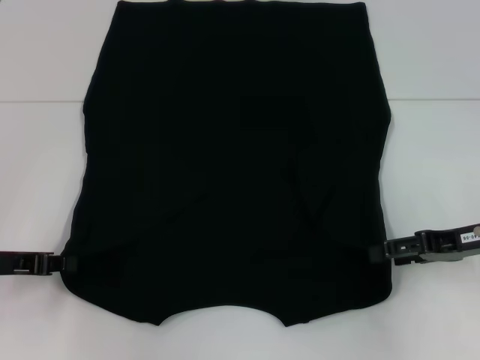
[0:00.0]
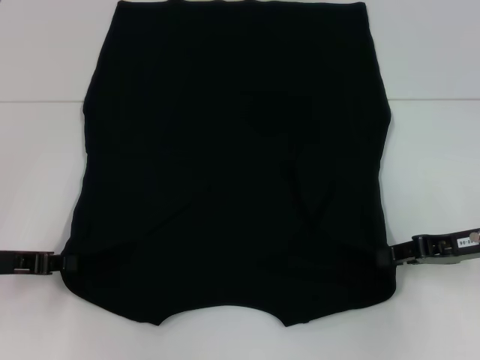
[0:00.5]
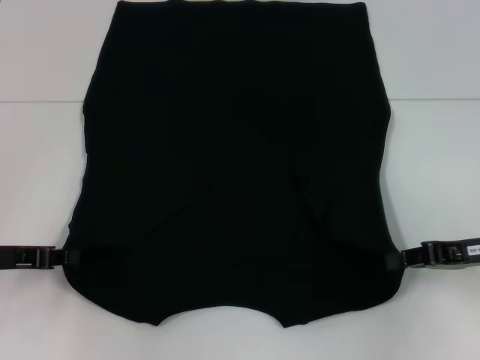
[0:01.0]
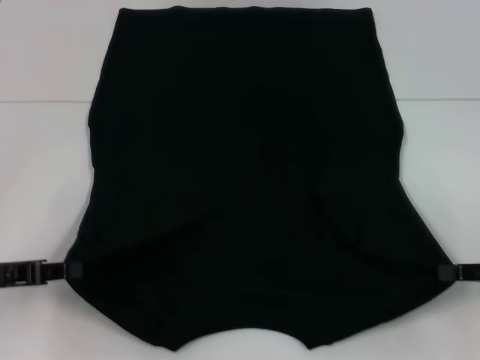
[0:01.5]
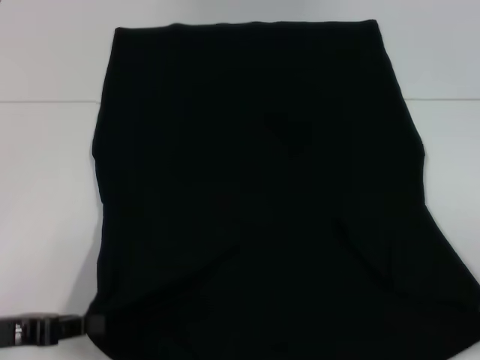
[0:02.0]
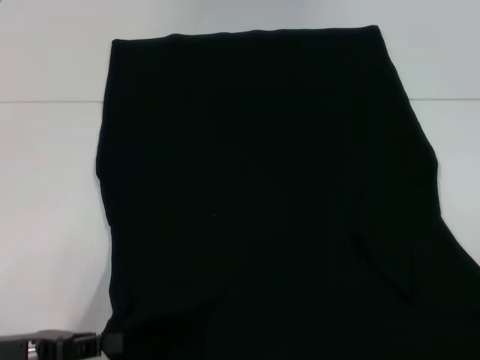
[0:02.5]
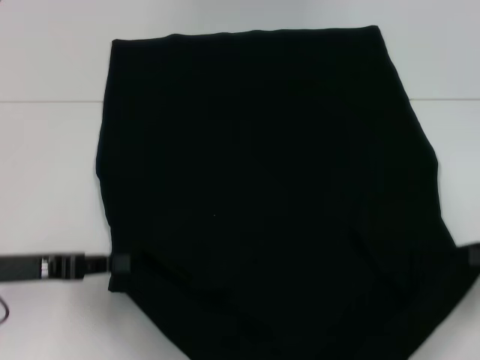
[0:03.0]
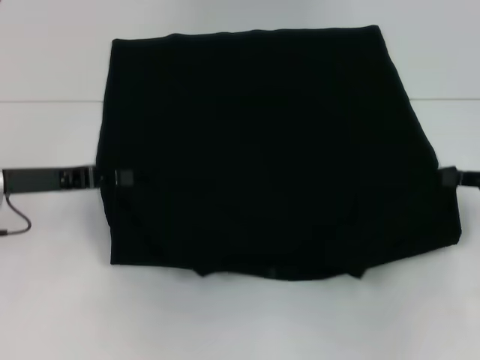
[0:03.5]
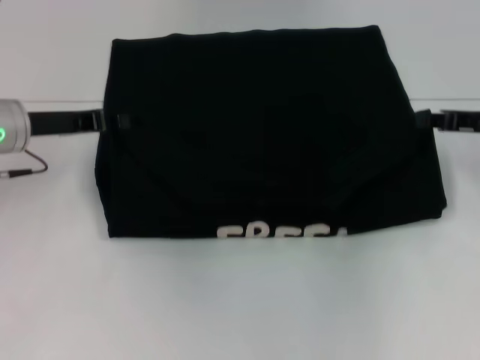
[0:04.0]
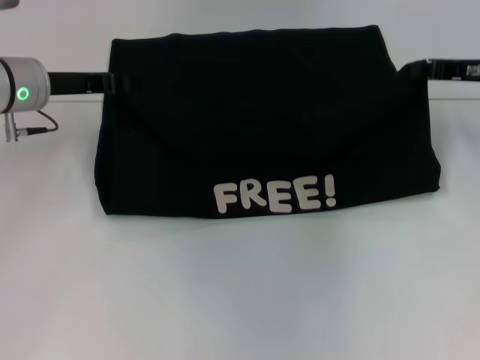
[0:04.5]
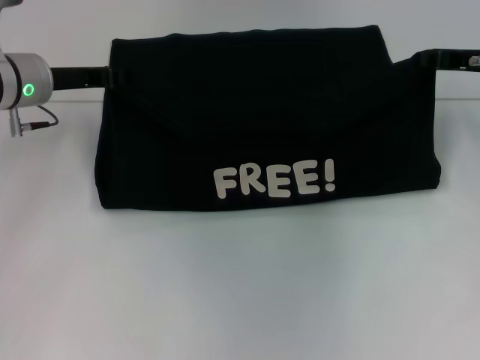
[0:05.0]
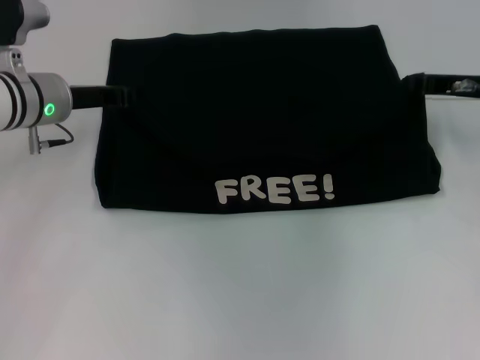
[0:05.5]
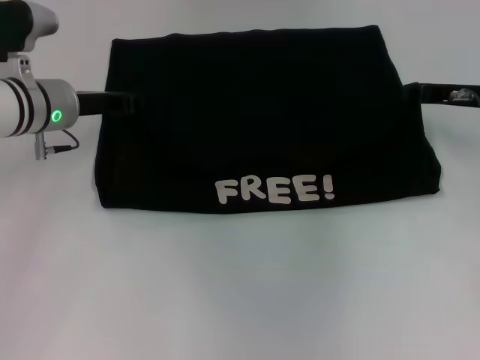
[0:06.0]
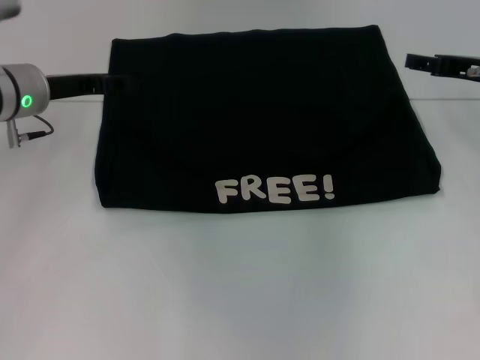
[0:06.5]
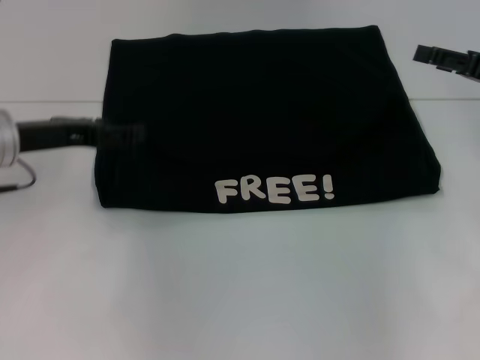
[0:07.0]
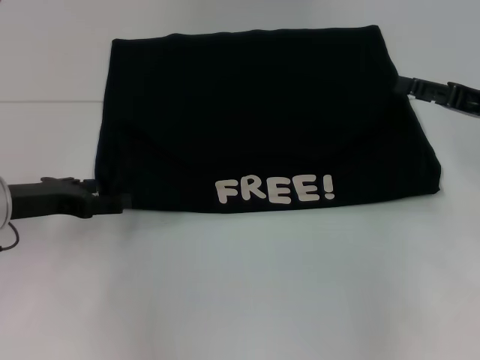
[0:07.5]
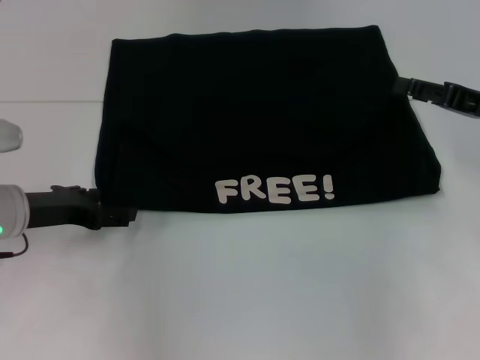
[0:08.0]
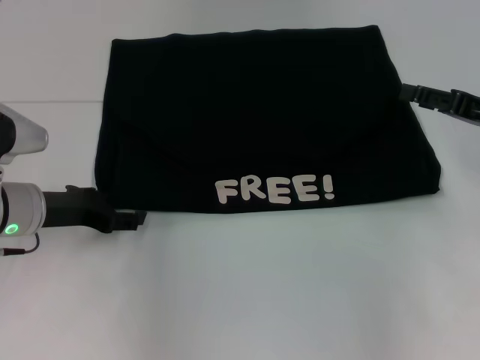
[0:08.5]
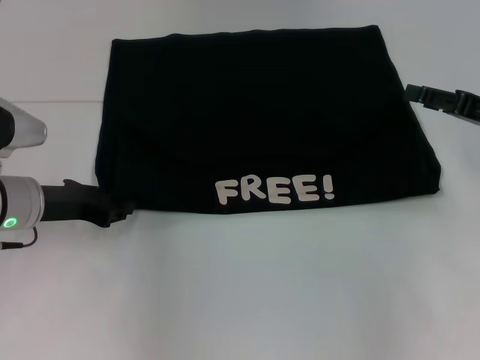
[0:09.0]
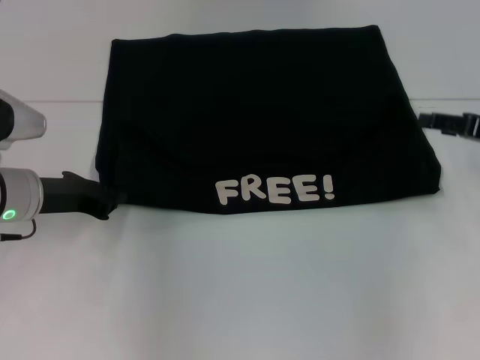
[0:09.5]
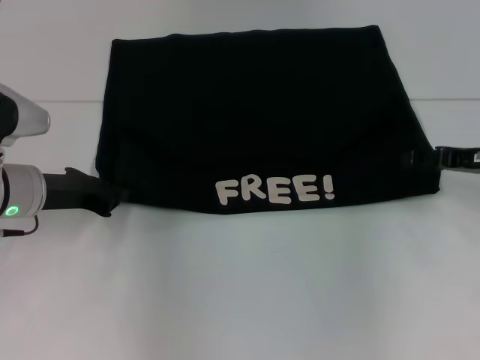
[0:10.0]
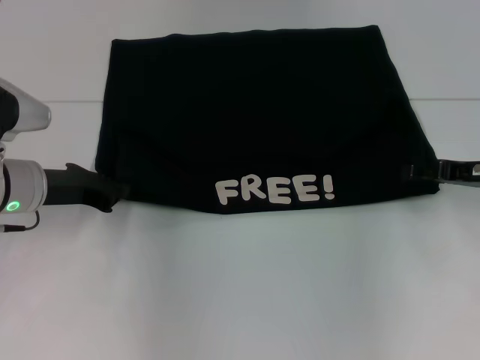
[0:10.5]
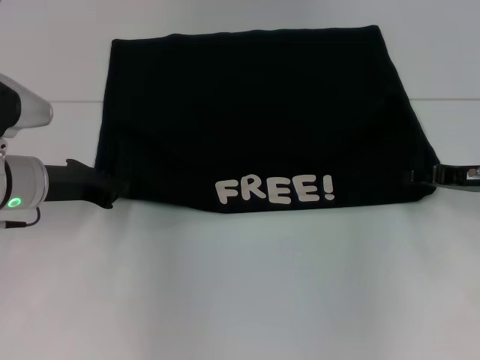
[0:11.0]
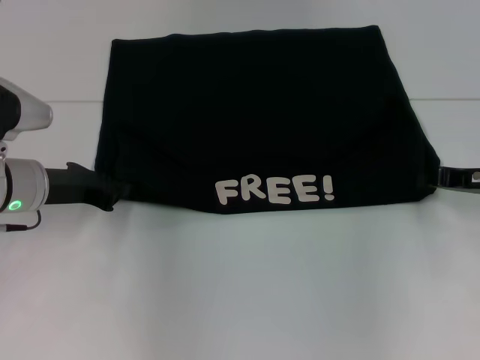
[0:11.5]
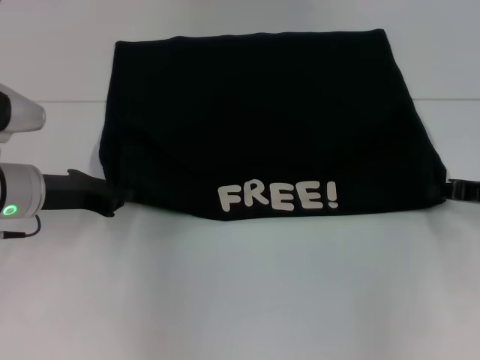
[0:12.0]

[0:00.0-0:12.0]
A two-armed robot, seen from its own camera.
Step, 0:00.0 to 0:01.5: Grab the bottom right corner with your right hand.
Step, 0:02.0 to 0:06.5: Fold the clothes with your left hand.
Step, 0:02.0 to 0:06.5: Fold the clothes with your right hand.
0:00.0 to 0:02.0: The left gripper moves backward, approximately 5 cm. Meanwhile the right gripper goes approximately 15 cm backward and to the right, and closes.
0:02.0 to 0:04.0: The right gripper moves forward and to the left, some 20 cm. The left gripper heads forward, covering about 20 cm.
0:04.0 to 0:06.0: The left gripper ends up about 5 cm from where it was.
0:06.0 to 0:08.0: The left gripper heads backward, covering some 10 cm, and opens. Meanwhile the right gripper travels backward by some 5 cm, and opens.
0:08.0 to 0:10.0: The left gripper closes.
0:10.0 to 0:12.0: The right gripper closes.

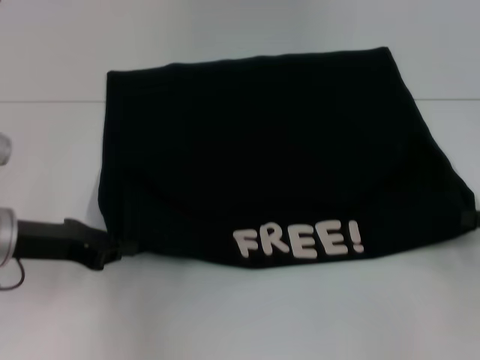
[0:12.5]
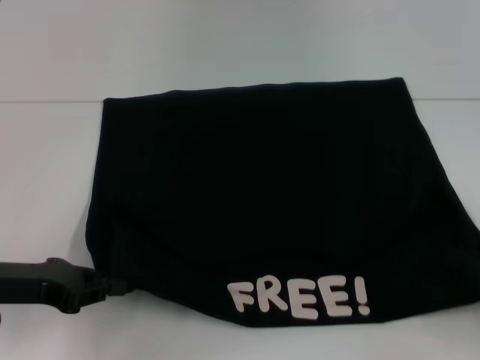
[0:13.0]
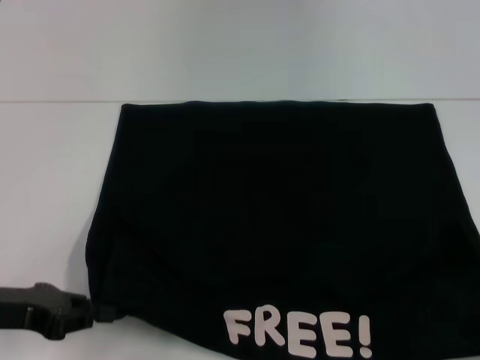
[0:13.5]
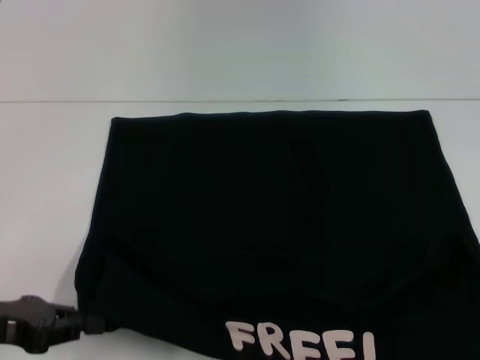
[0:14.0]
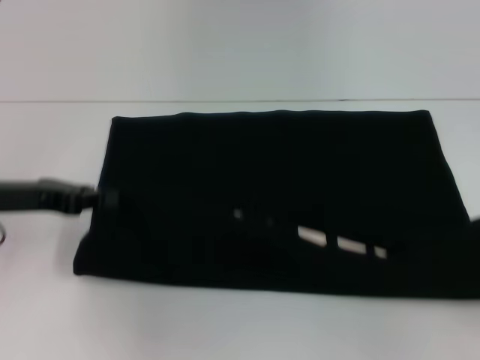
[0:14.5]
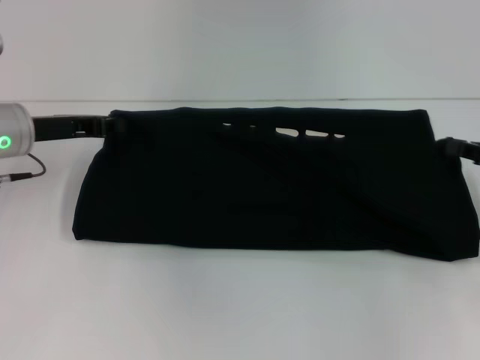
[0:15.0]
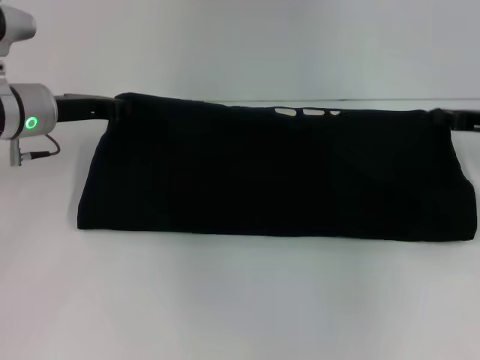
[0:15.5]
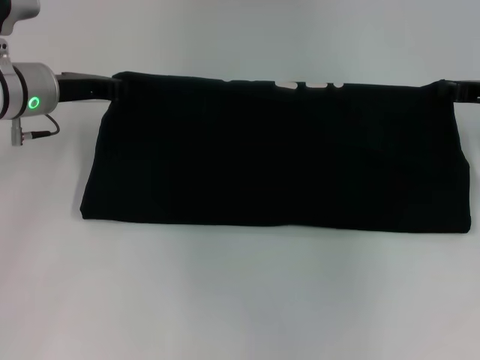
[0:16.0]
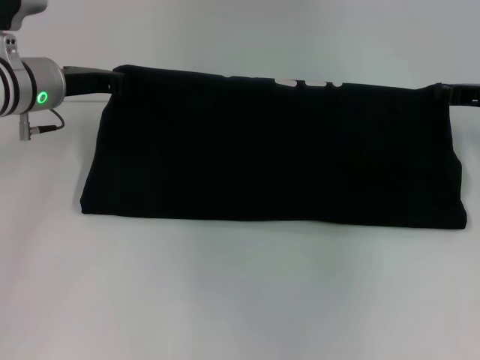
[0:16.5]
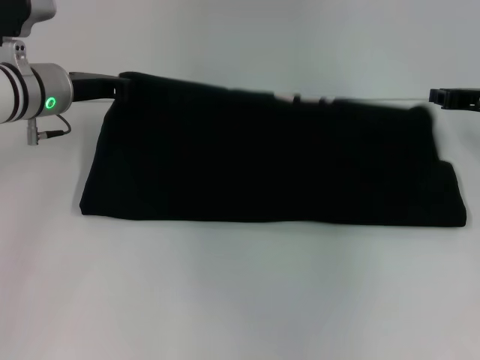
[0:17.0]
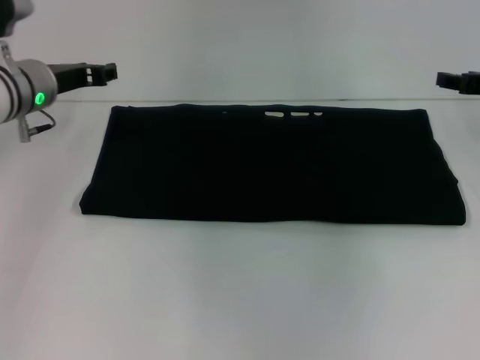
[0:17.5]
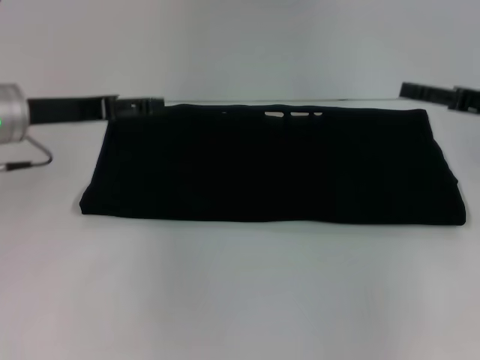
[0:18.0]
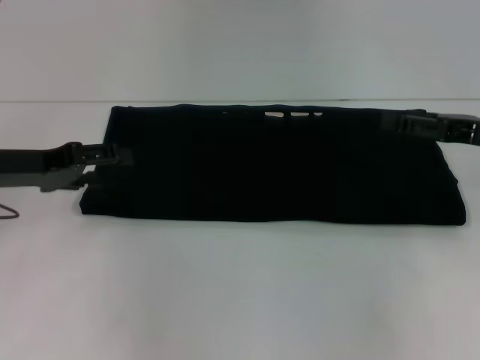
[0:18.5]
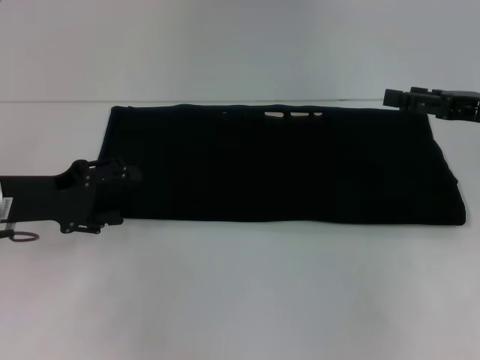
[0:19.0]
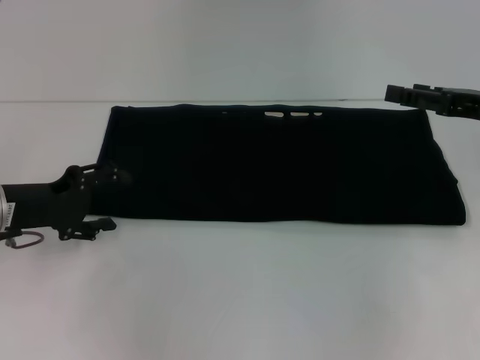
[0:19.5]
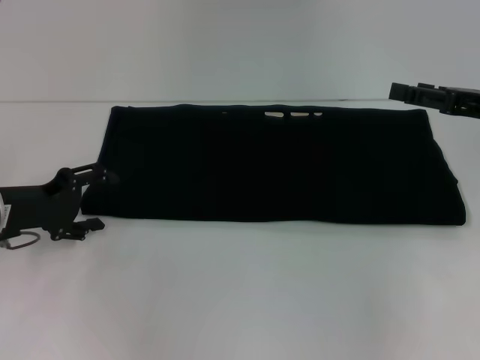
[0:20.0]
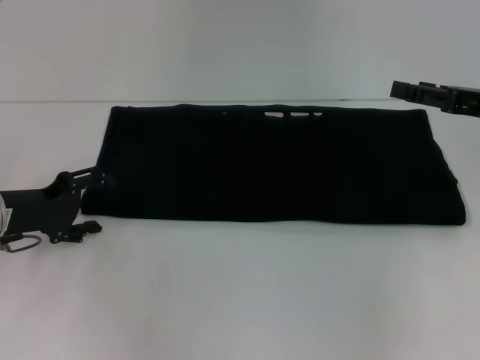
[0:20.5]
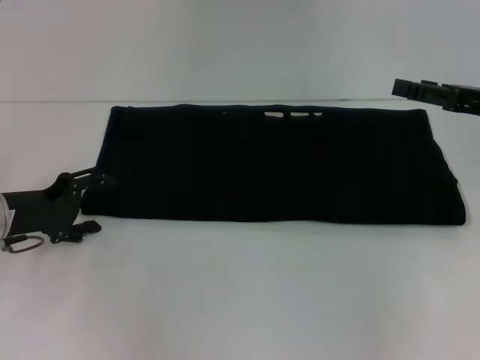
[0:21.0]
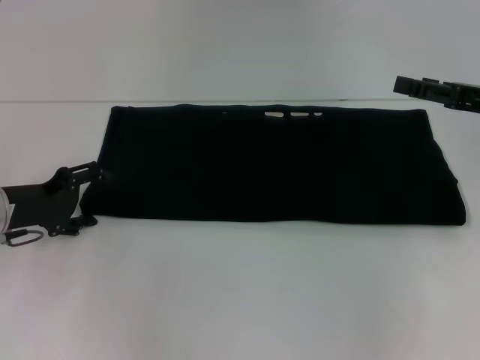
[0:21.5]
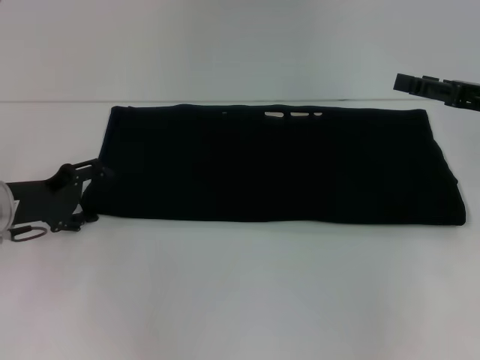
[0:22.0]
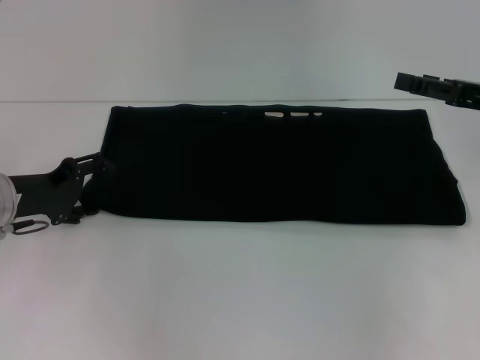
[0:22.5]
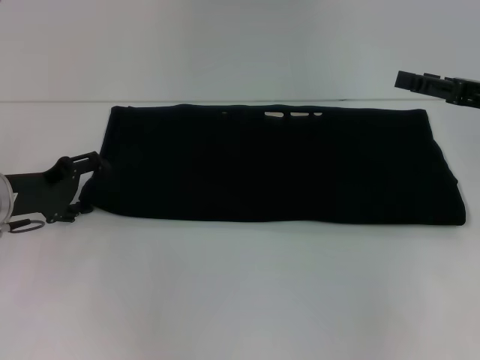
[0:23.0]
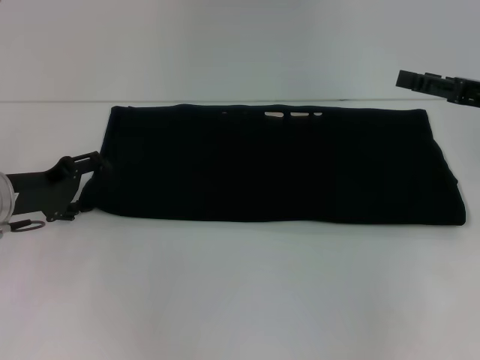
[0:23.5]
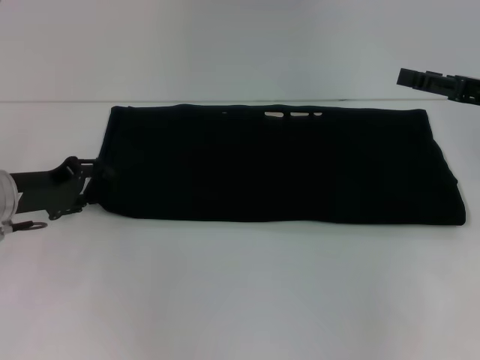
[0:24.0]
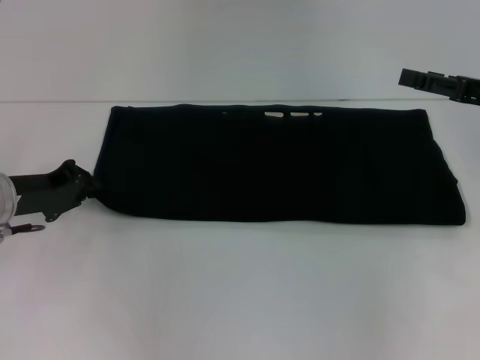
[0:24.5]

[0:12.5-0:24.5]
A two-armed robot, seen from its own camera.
Step, 0:13.5 to 0:17.5: Fold the clothes with your right hand.
0:12.5 to 0:14.5: The left gripper reaches approximately 10 cm backward, then returns. The right gripper travels backward by roughly 5 cm.
0:14.5 to 0:16.5: The left gripper moves forward and to the right, about 15 cm. Meanwhile the right gripper moves forward and to the left, some 20 cm.
0:16.5 to 0:18.5: The right gripper heads backward, covering approximately 5 cm, and opens up, while the left gripper travels backward and to the left by about 10 cm, and opens its fingers.
0:18.5 to 0:20.5: The left gripper heads downward, covering roughly 5 cm.
0:20.5 to 0:22.5: The grippers make only small movements.
0:22.5 to 0:24.5: The left gripper closes.

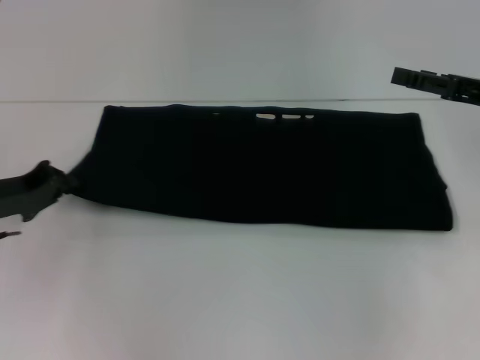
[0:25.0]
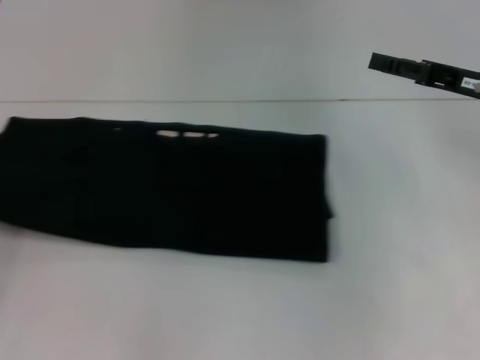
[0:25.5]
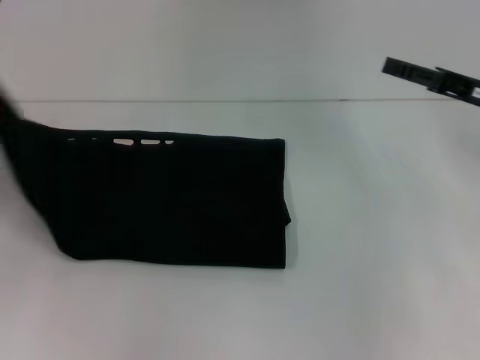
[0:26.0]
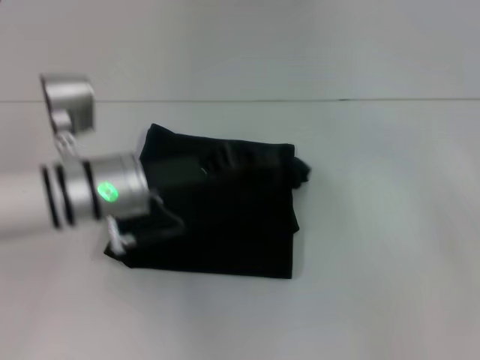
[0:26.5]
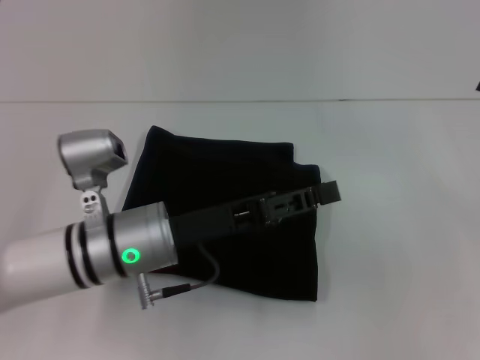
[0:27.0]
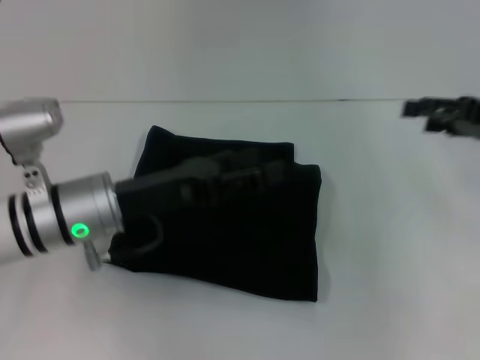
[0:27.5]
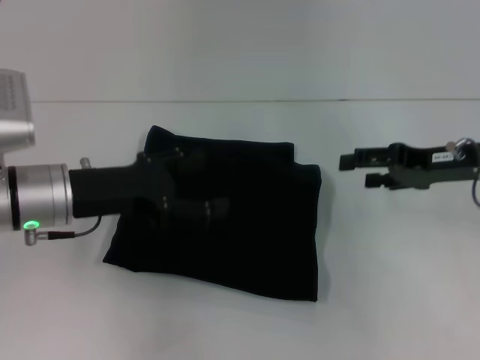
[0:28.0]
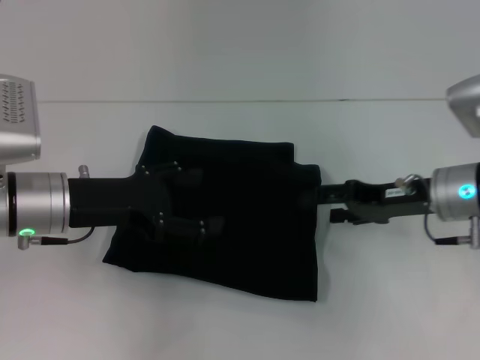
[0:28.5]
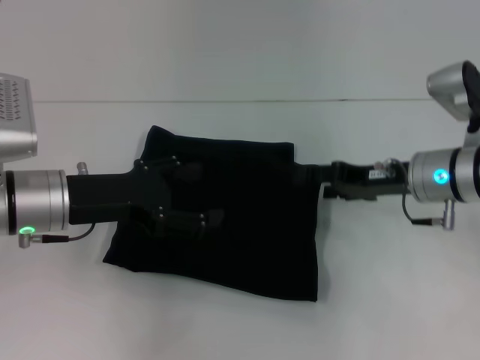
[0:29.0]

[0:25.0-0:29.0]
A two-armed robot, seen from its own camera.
0:25.0 to 0:27.0: The left gripper heads to the right, covering some 20 cm, while the right gripper goes about 5 cm to the right.
0:27.0 to 0:29.0: The left gripper shifts some 10 cm to the left, and opens up, while the right gripper shifts some 15 cm to the left.
